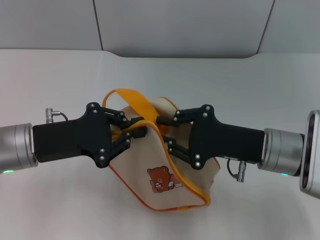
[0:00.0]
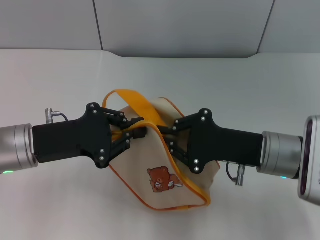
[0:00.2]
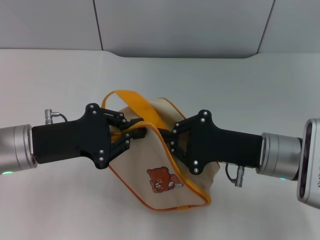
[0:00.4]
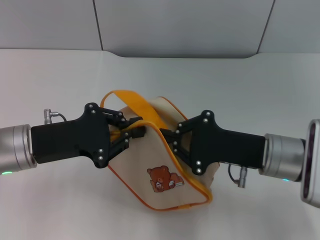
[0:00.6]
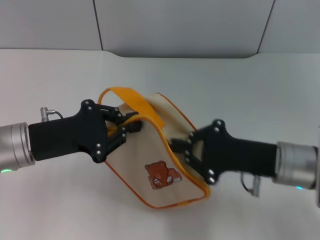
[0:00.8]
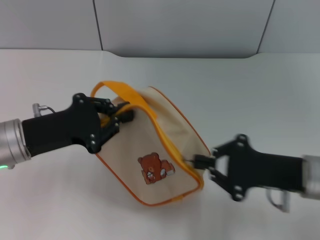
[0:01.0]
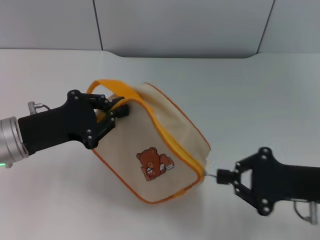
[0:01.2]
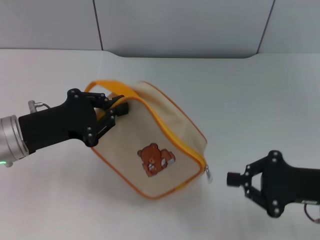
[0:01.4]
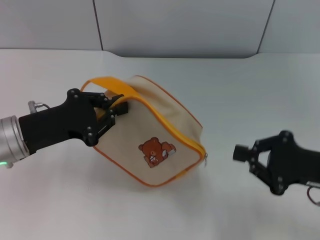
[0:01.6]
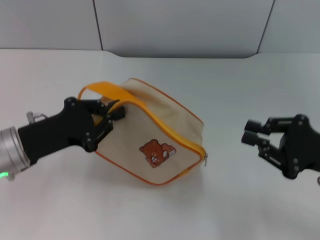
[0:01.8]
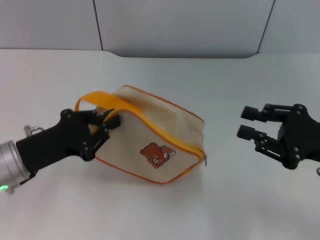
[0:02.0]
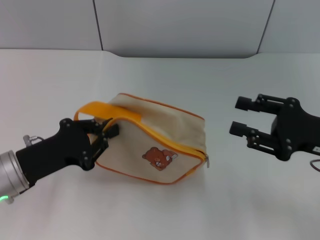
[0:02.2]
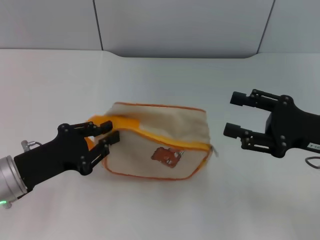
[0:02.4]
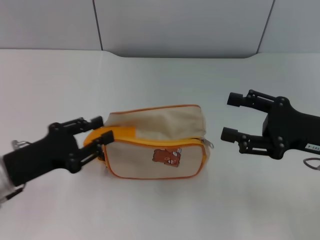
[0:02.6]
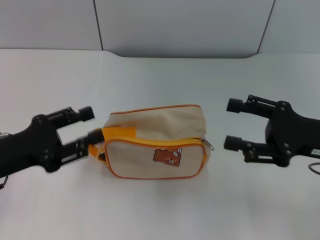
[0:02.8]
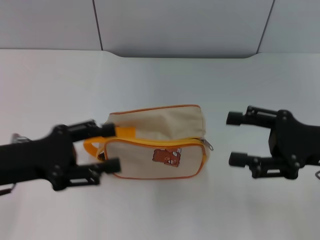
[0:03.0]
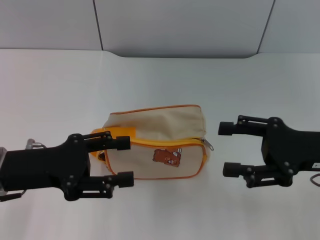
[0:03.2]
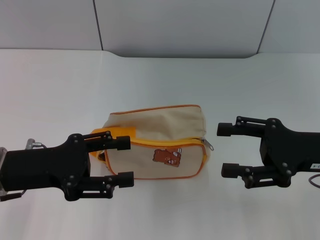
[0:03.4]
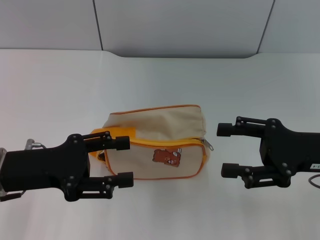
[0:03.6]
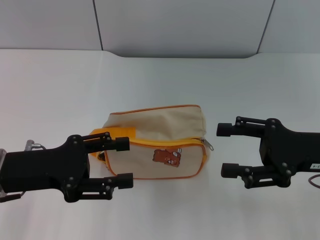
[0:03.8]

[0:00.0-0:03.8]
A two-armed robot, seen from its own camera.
Step, 0:01.8 to 0:02.6: Place the bag on the table with left gripper.
0:00.0 to 0:01.2: The right gripper heads to the right, covering about 10 cm, and closes.
0:01.2 to 0:02.6: The right gripper moves approximately 5 cm, and opens. The left gripper shifts by roughly 5 cm.
0:02.6 to 0:03.8: The left gripper opens.
